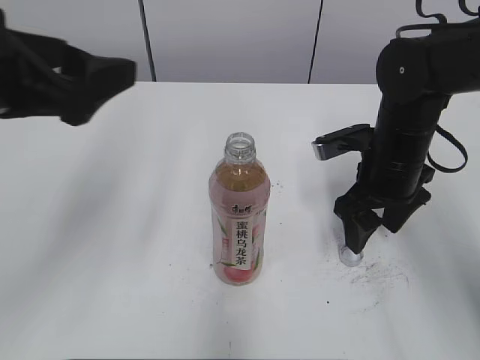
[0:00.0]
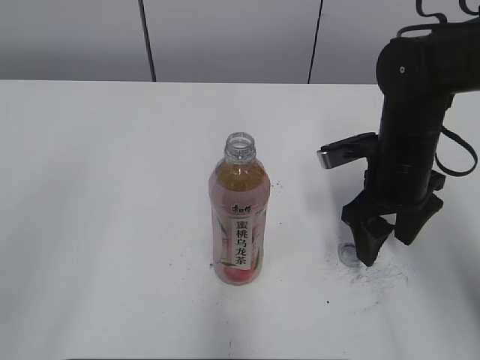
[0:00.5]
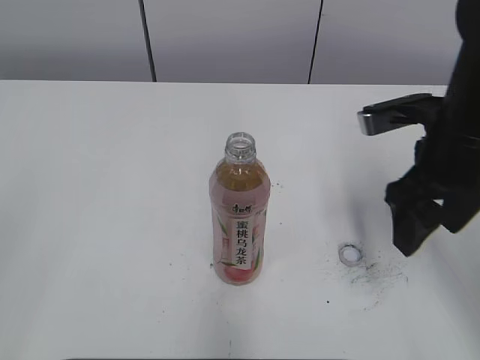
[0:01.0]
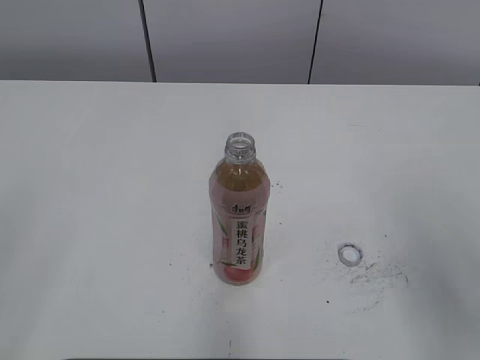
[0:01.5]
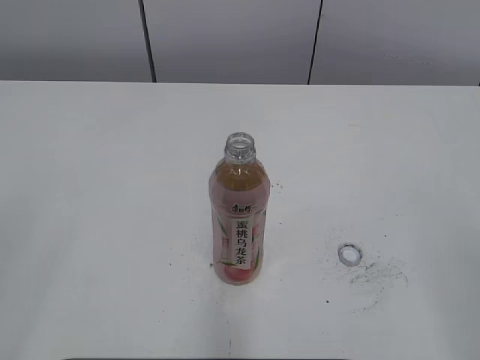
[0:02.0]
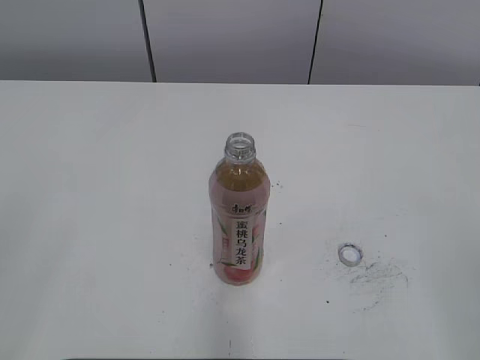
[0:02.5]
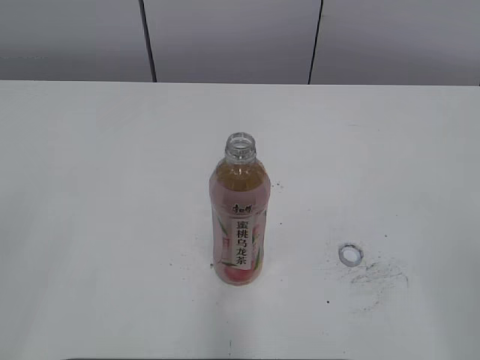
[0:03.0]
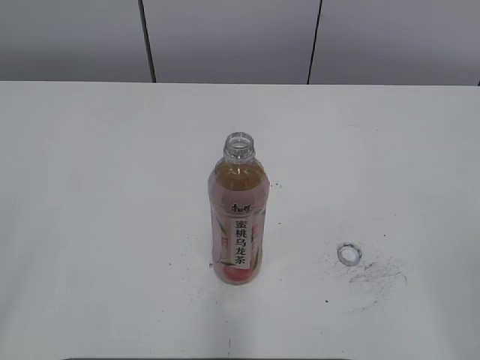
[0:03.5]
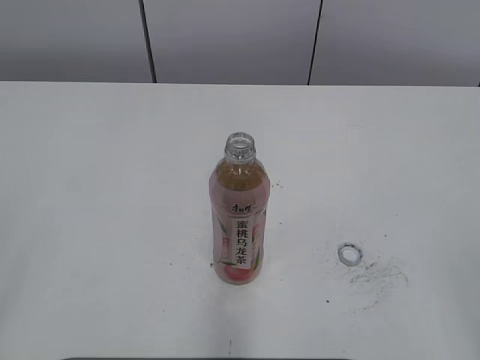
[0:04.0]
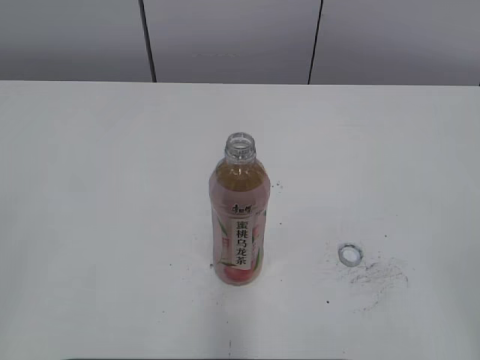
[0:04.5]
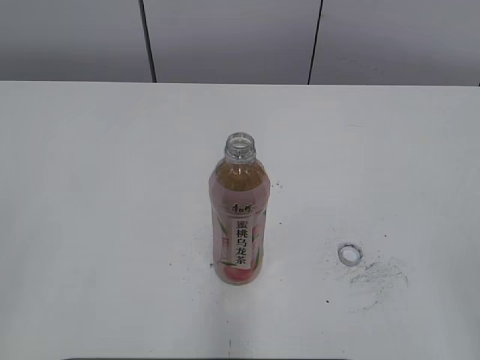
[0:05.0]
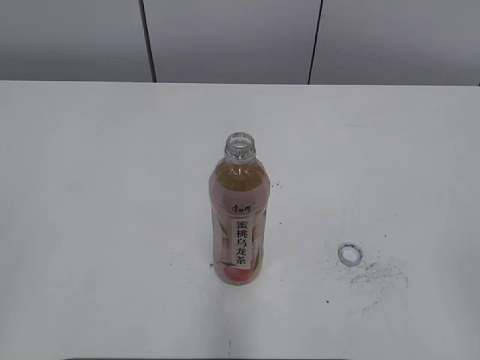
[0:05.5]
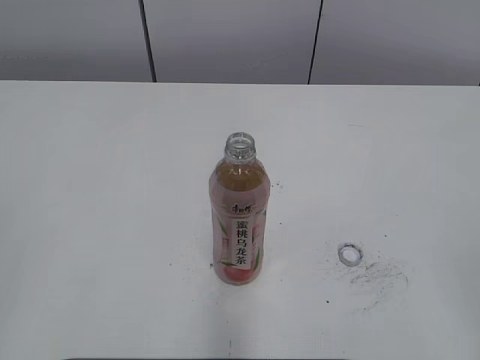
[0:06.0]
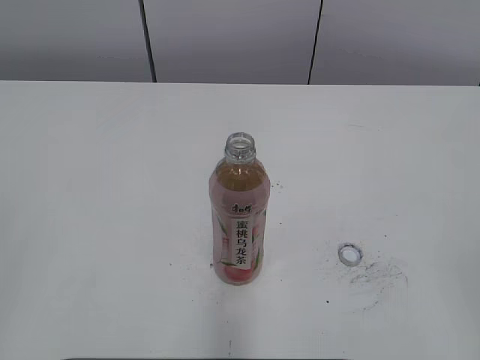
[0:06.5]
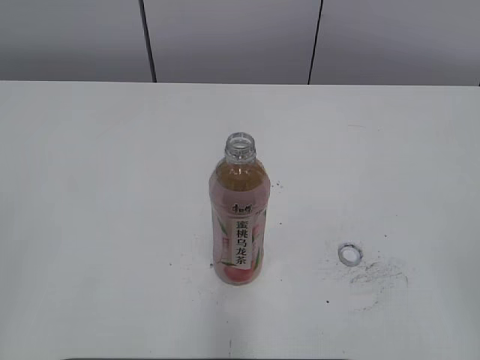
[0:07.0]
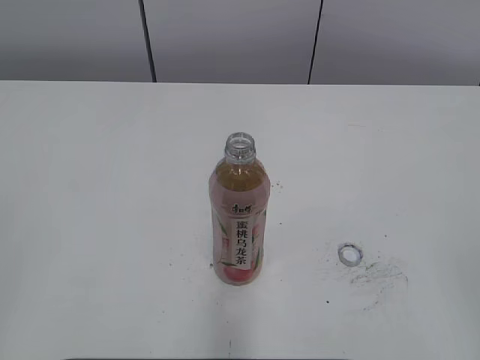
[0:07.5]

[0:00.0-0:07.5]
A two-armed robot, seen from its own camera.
0:00.0 to 0:02.0: The left gripper heads backward and to the left, covering approximately 25 cm. Meanwhile the right gripper moves backward and upward, about 35 cm.
0:05.5 to 0:07.5: The two grippers keep their place.

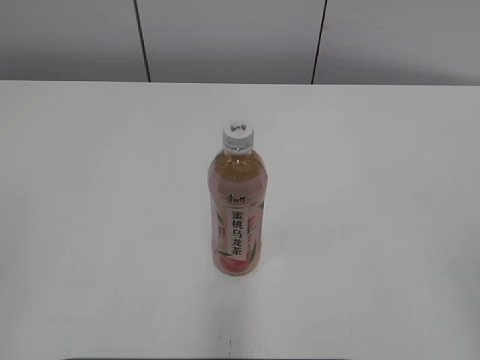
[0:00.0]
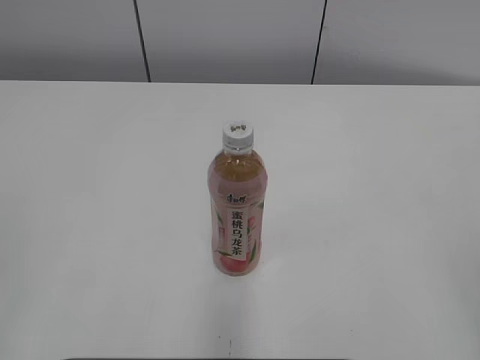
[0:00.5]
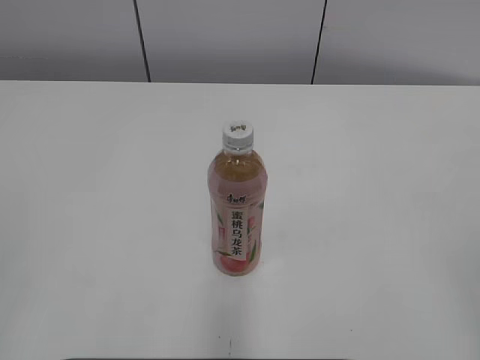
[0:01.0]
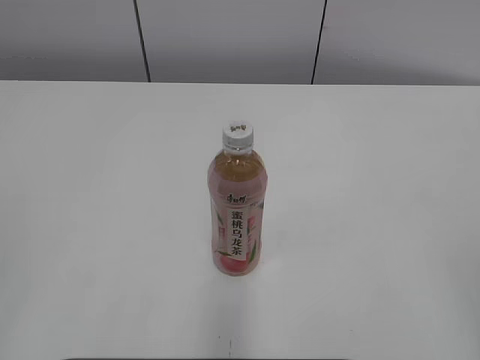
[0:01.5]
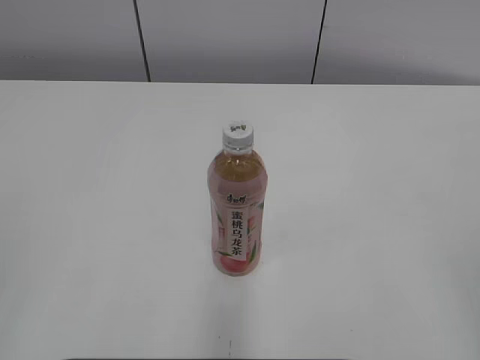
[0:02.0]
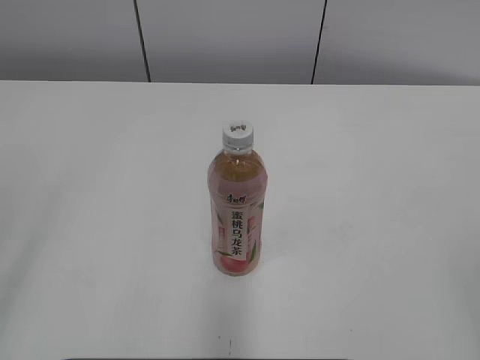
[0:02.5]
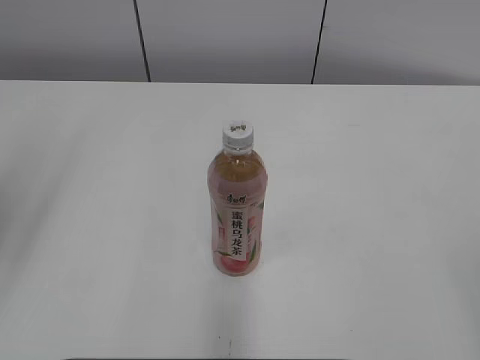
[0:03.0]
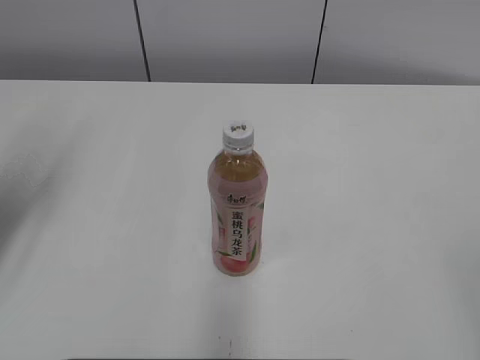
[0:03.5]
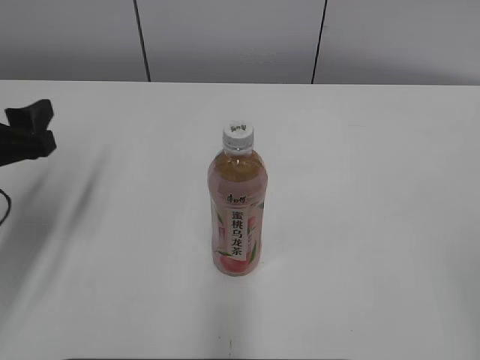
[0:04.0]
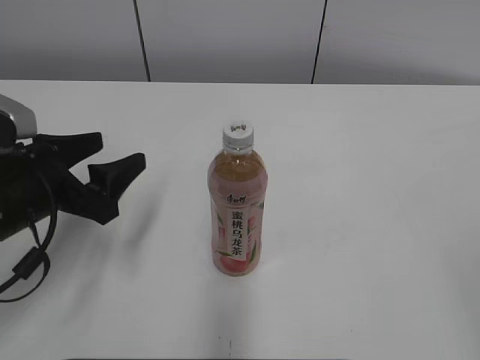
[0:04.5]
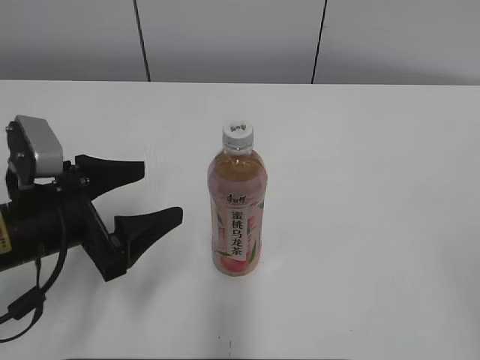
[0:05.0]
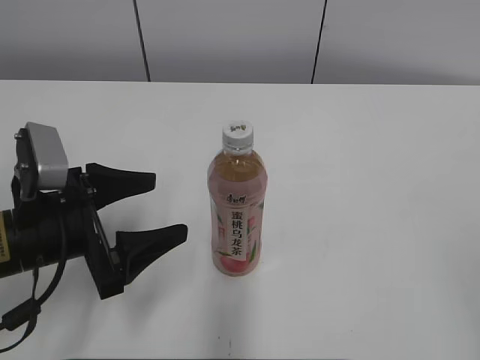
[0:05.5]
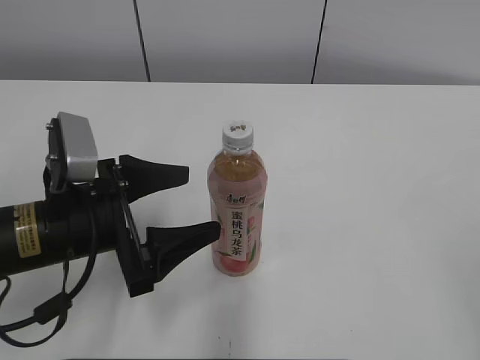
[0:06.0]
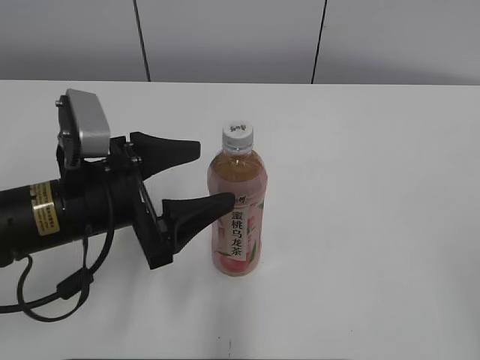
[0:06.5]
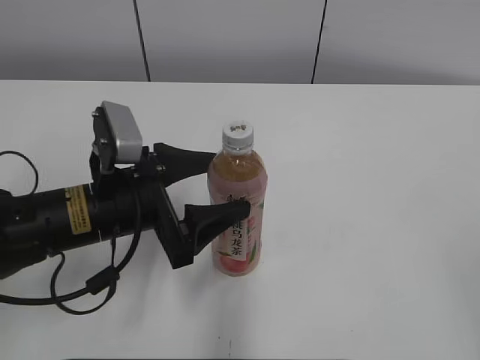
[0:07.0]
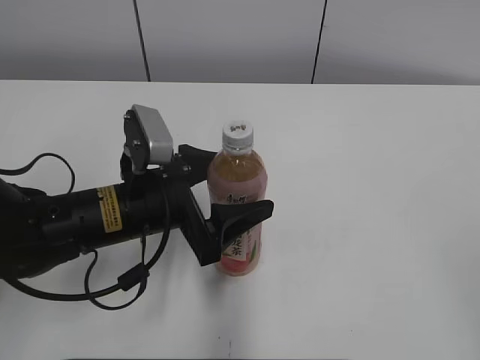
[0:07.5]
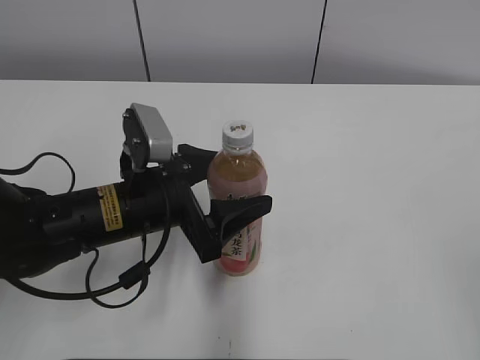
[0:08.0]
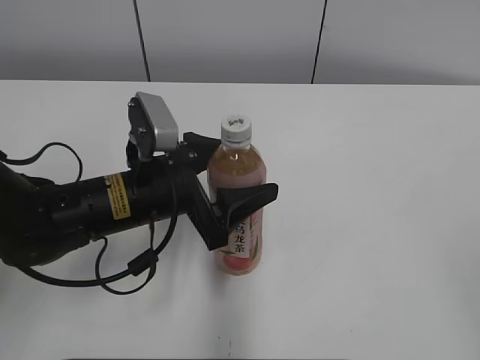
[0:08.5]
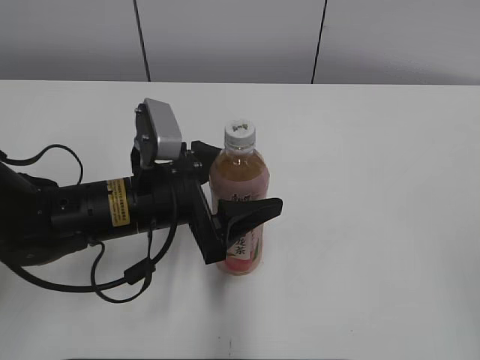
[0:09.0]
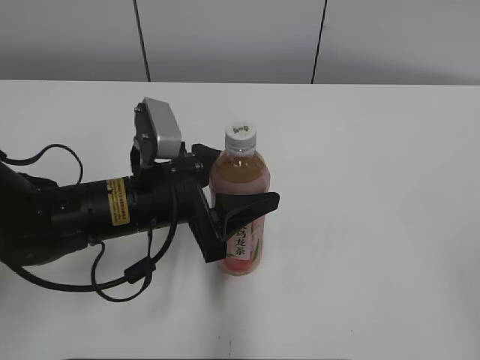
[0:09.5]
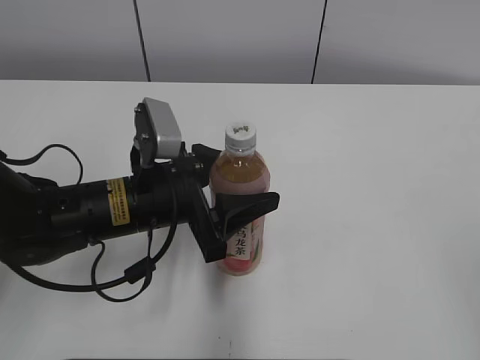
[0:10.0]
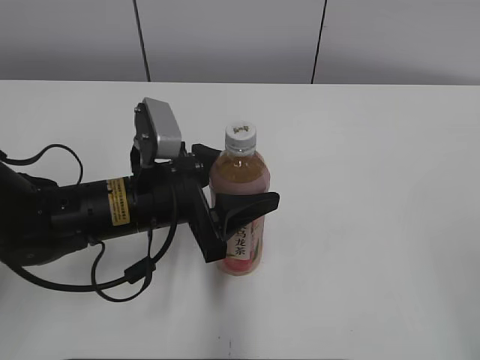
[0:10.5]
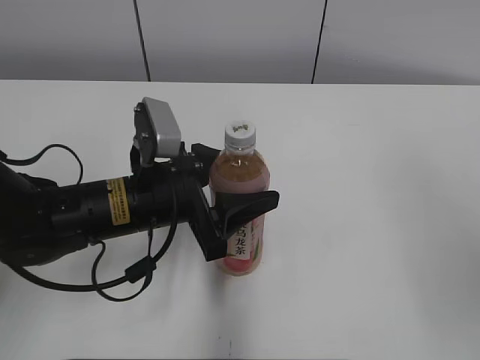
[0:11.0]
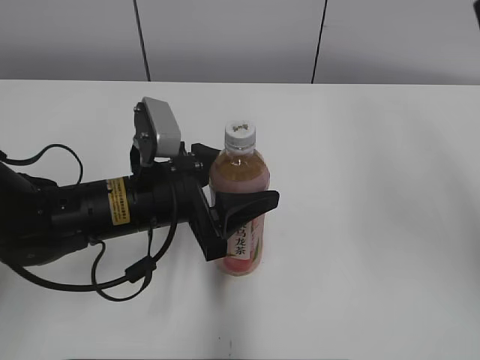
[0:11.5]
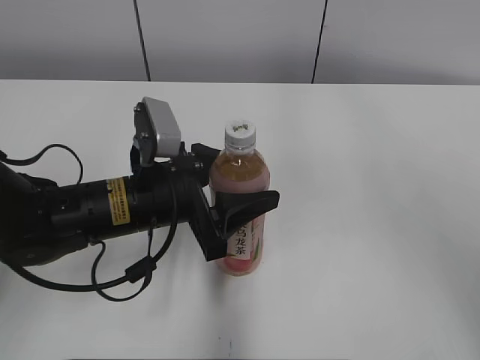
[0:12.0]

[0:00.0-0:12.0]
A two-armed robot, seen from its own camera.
Step, 0:00.0 to 0:10.0: Grab the Peach Oolong Tea with the left hand.
0:02.0 to 0:04.0: The left gripper heads forward and downward, covering some 25 cm, and opens.
0:04.0 to 0:06.0: The left gripper shifts some 10 cm to the right and downward.
0:06.0 to 0:08.0: The left gripper is displaced to the right by roughly 5 cm.
0:08.0 to 0:10.0: The grippers stay close to where they were, moving slightly.

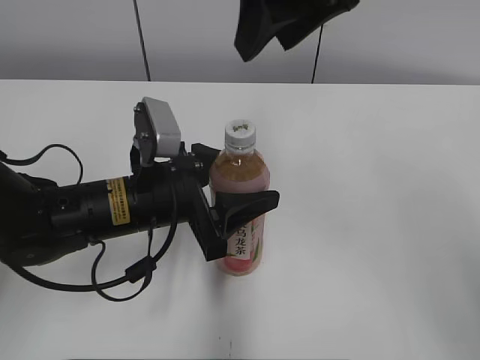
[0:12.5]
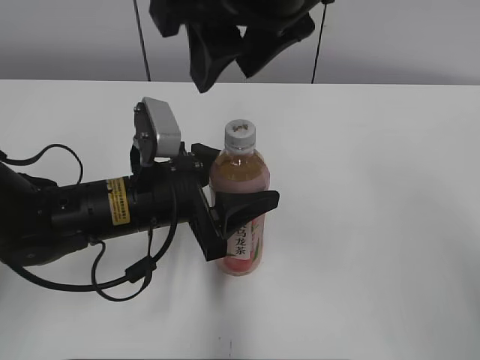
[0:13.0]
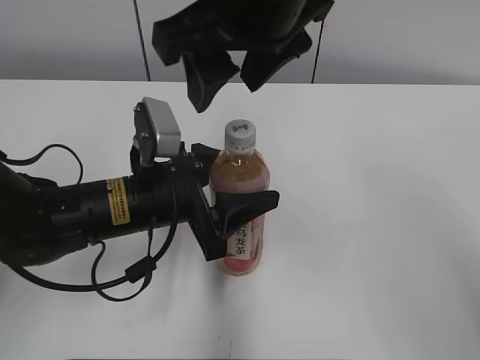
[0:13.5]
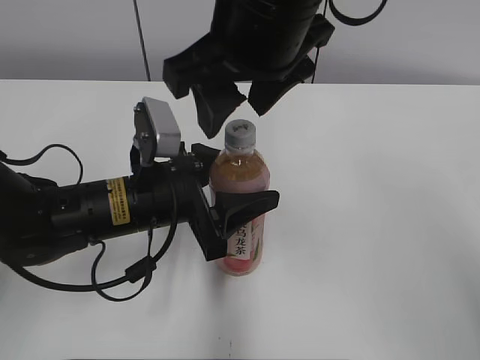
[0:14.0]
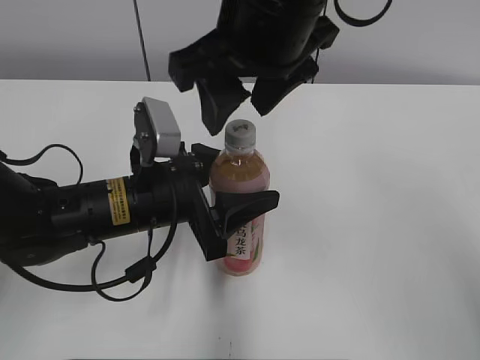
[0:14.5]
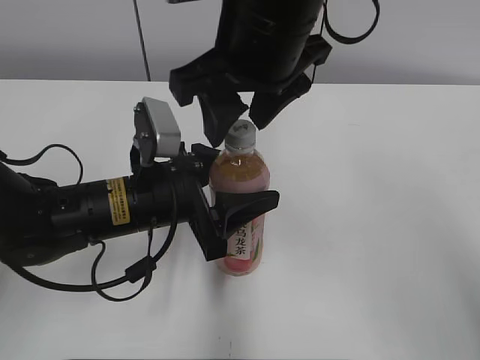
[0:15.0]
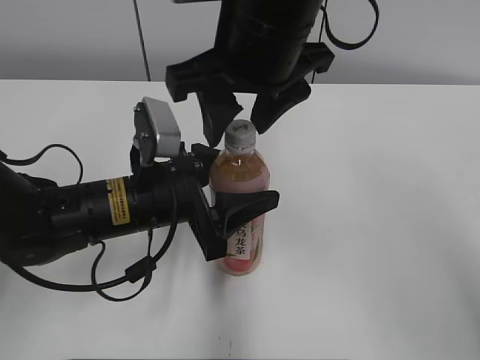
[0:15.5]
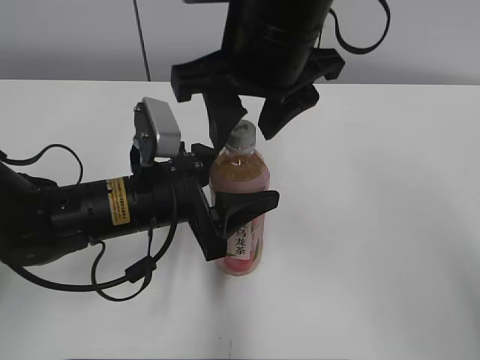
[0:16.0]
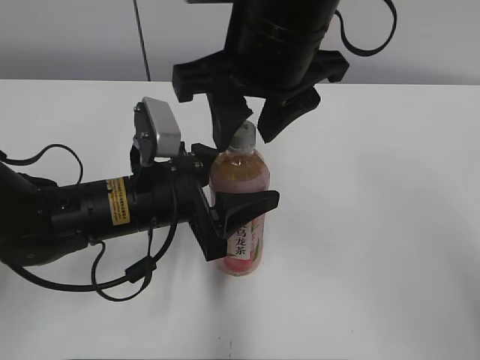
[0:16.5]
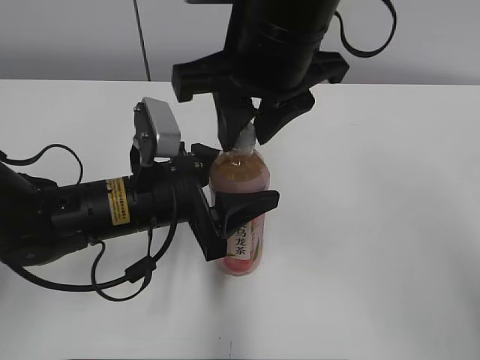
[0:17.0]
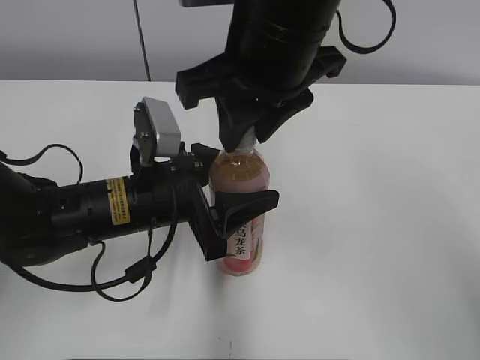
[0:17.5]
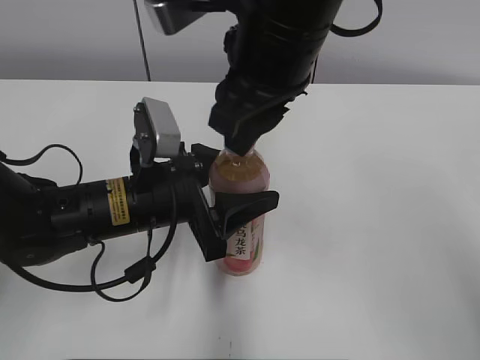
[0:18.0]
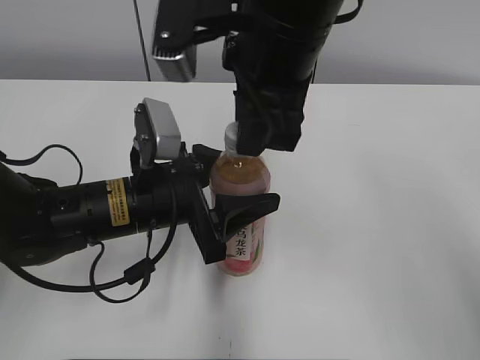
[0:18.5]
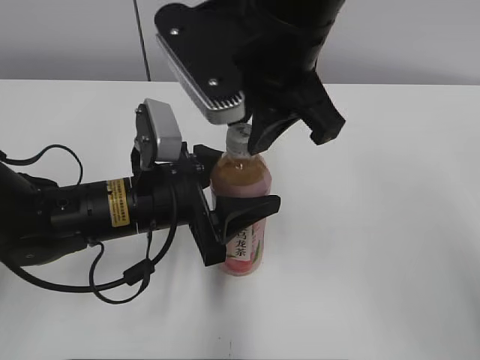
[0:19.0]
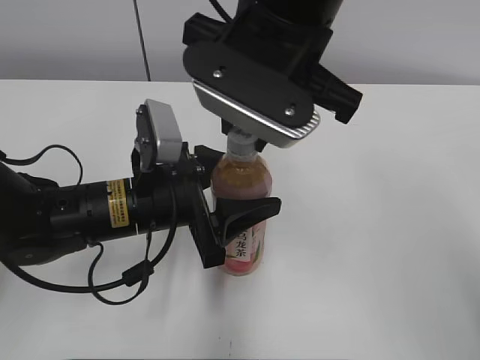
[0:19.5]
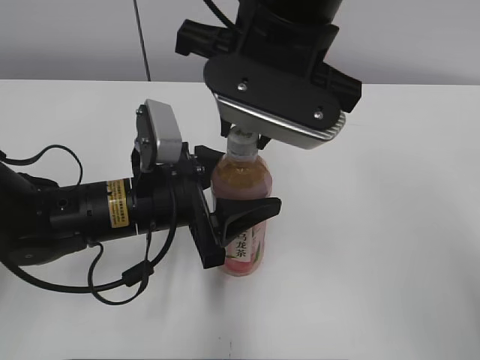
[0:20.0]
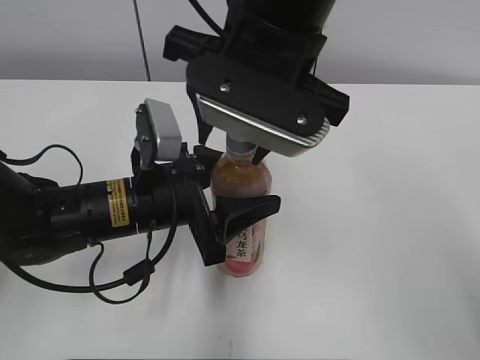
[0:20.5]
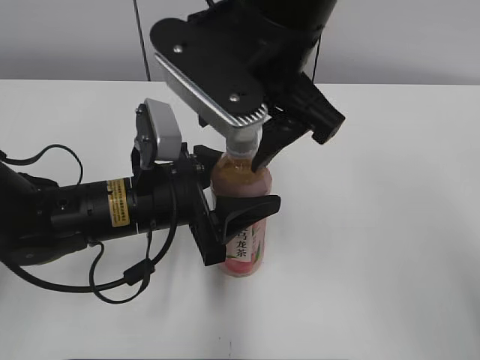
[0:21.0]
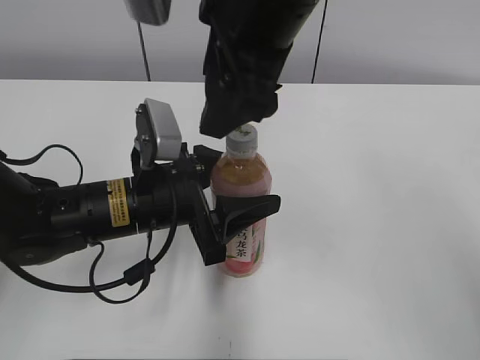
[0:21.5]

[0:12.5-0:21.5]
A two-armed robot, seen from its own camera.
0:12.5 to 0:14.5: The right gripper shifts by approximately 5 cm.
0:14.5 to 0:17.0: The right gripper closes up.
0:19.5 to 0:21.5: The right gripper opens its fingers.
